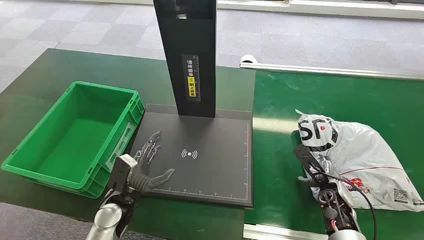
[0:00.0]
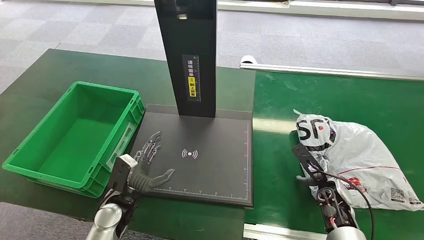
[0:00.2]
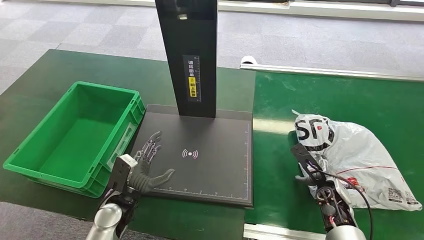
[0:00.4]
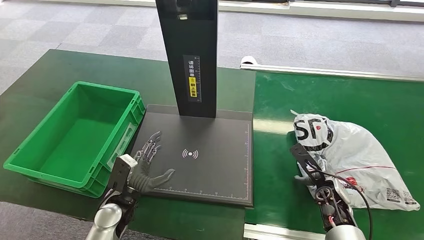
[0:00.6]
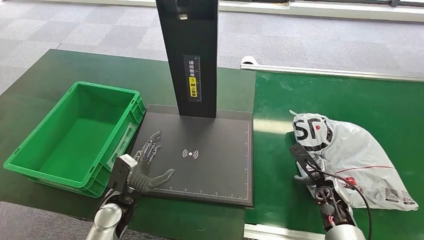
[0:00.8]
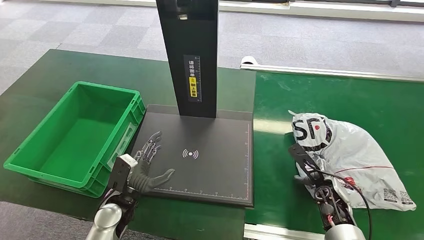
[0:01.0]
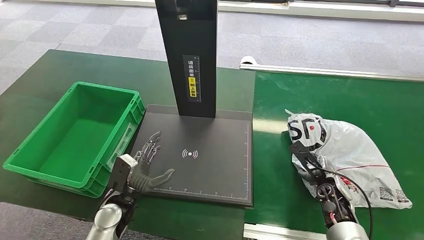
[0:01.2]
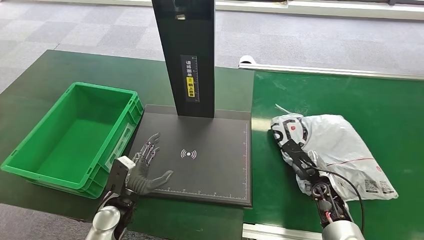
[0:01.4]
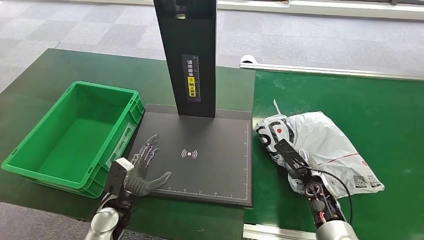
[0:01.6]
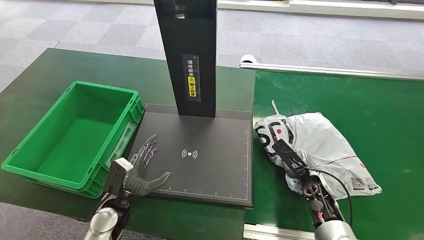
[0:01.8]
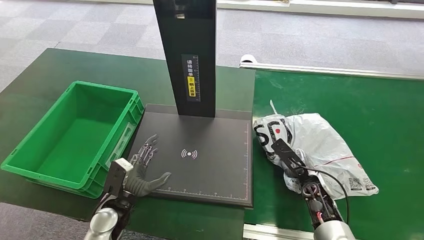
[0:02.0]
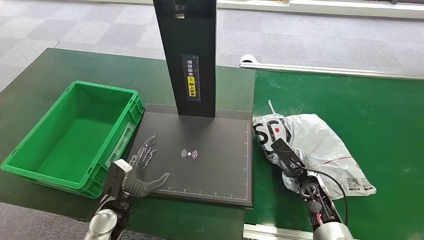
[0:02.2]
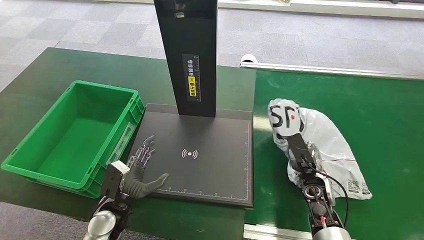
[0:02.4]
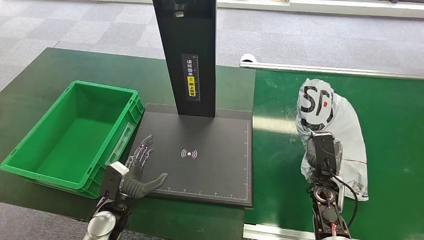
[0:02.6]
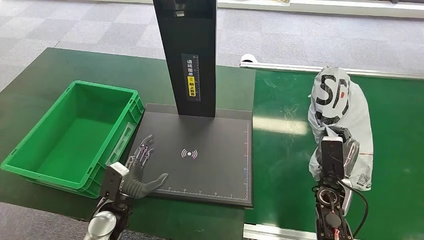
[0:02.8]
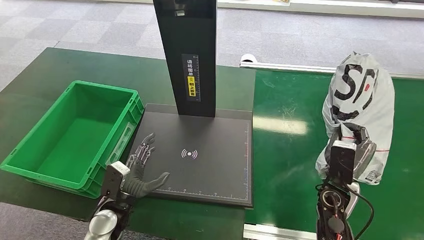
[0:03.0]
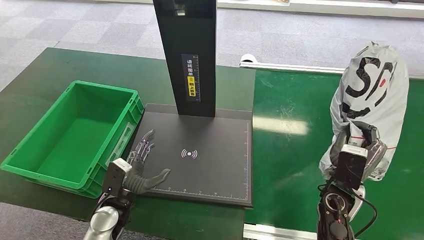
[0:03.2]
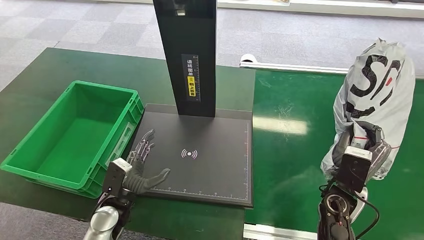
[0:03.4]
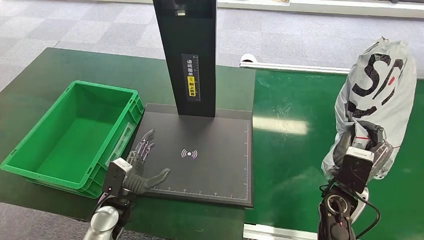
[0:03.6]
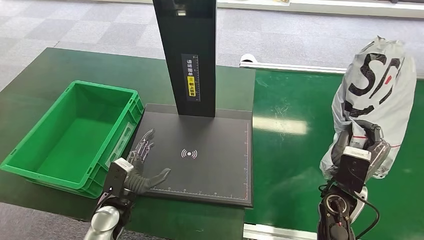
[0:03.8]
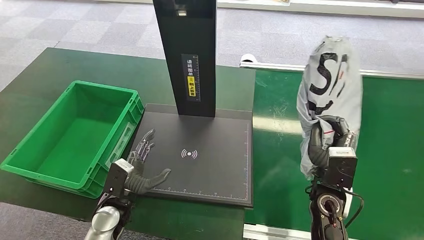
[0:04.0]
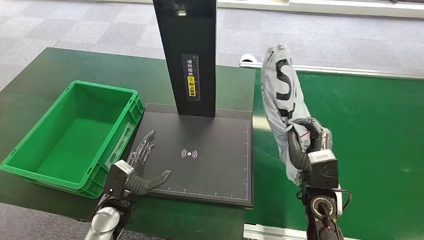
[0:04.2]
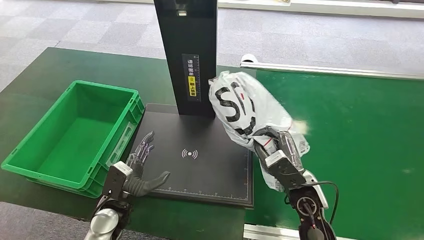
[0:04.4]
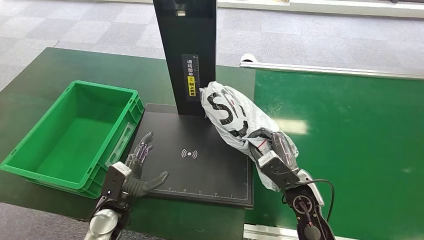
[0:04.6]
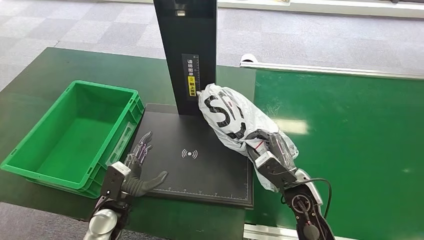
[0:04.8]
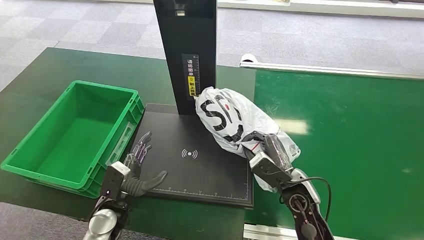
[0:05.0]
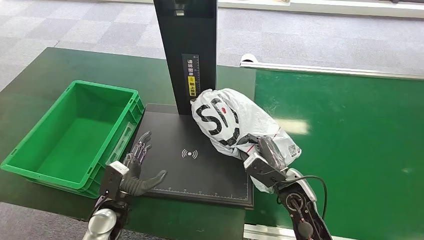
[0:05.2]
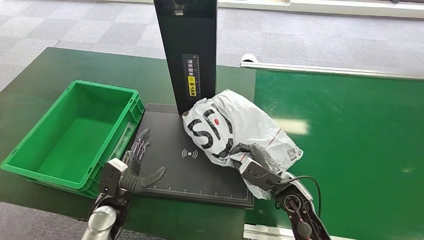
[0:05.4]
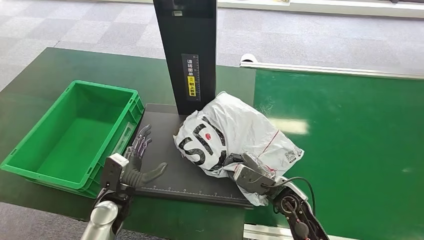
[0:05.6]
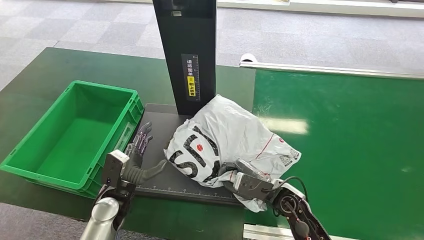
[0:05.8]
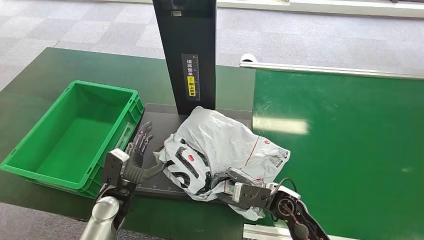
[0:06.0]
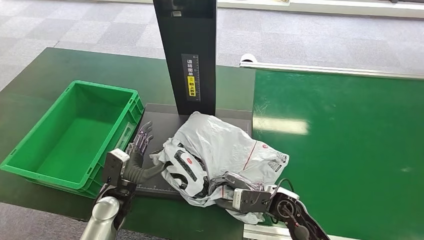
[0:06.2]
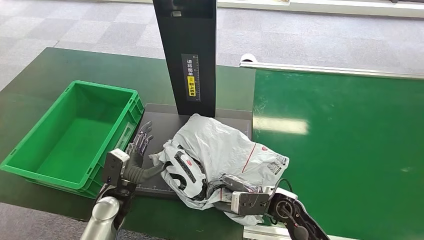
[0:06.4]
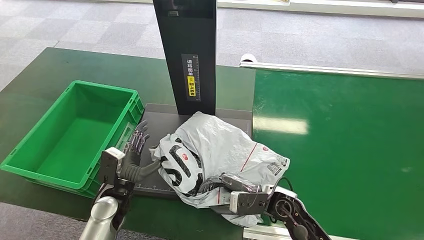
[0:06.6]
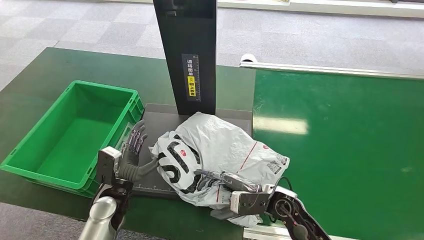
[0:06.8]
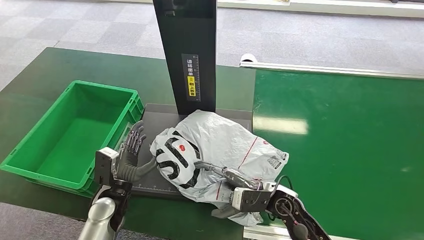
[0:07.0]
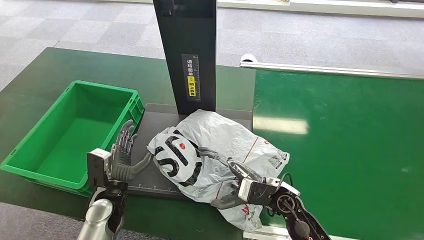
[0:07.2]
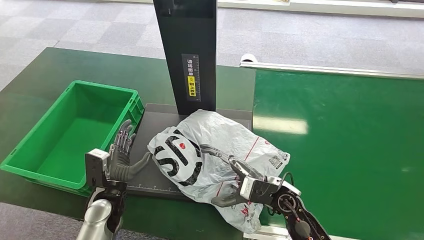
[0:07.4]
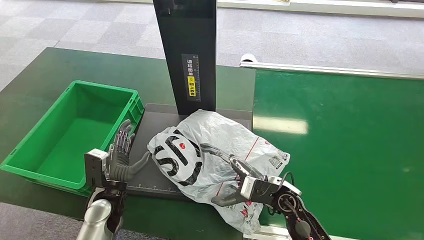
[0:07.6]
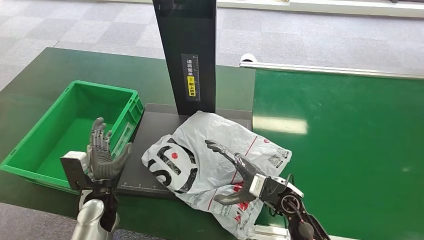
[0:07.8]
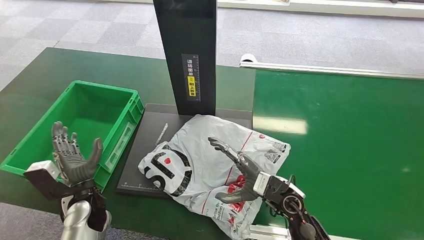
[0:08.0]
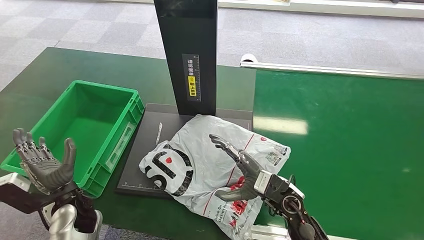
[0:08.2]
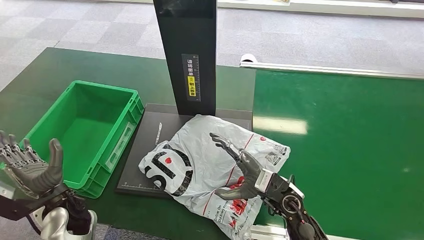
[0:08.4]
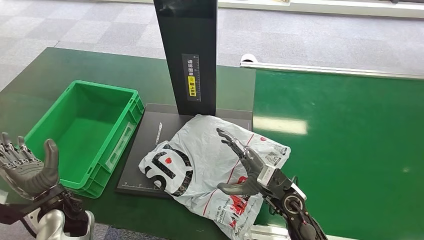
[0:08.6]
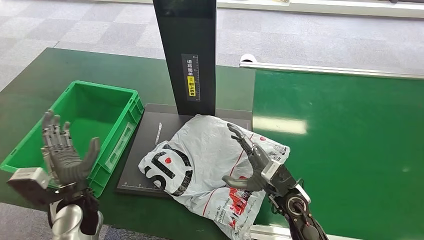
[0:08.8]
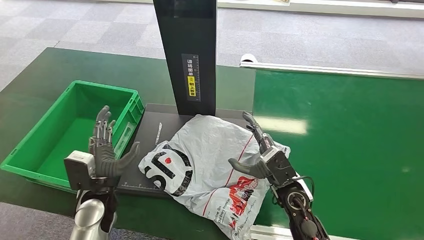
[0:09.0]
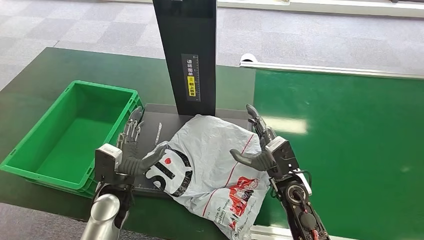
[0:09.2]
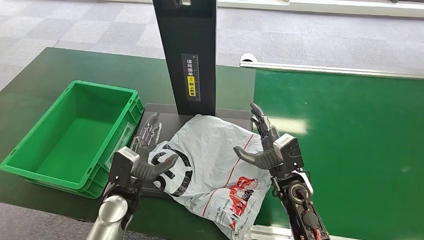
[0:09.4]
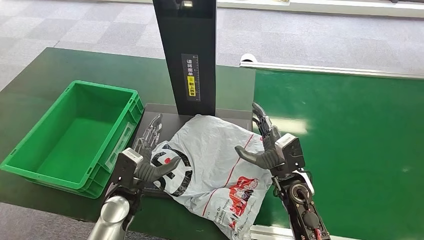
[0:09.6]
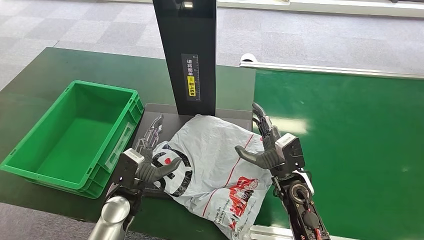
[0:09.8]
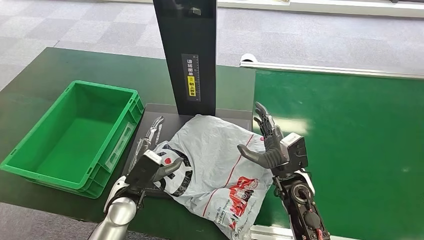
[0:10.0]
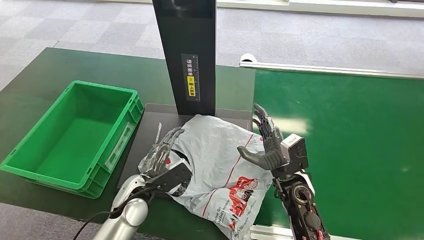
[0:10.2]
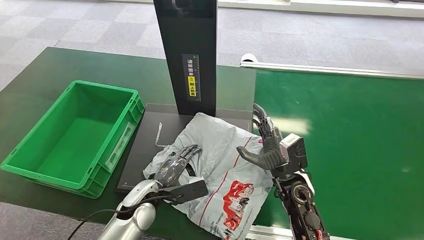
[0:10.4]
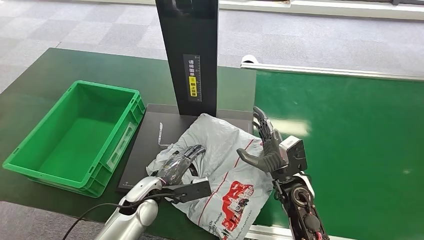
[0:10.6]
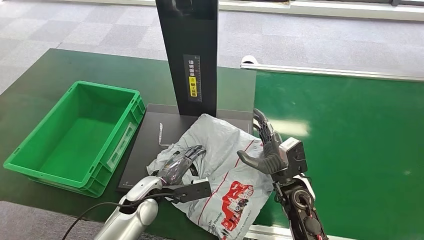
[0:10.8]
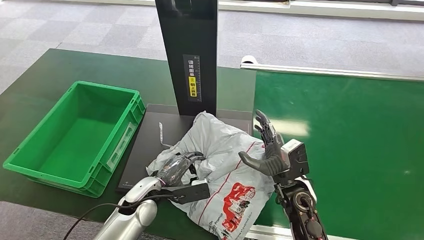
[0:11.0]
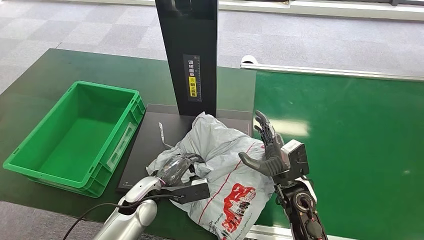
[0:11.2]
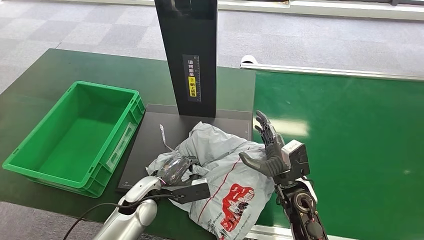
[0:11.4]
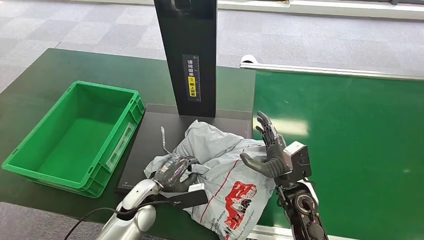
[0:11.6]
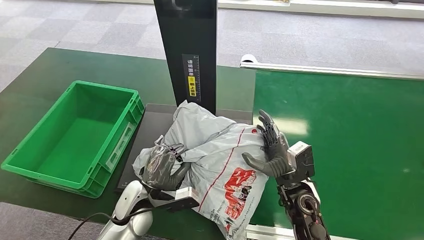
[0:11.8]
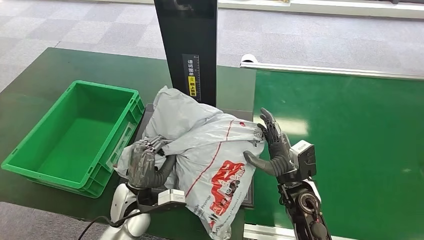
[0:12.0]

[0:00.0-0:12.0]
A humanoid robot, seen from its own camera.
Task of the whole recording: Weigh the package on the weighing device and place it in the left basket.
Step, 0:00.0 to 0:03.0: Pick up the package from the conveyor belt.
Step, 0:03.2 to 0:07.6: Place the package onto the inbound machine.
0:01.6 to 0:03.0: The right hand moves upward, roughly 5 cm.
0:04.4 to 0:06.0: The right hand shifts approximately 5 cm downward.
0:06.0 to 0:07.6: The hands stay close to where they were, moving slightly.
0:09.0 to 0:10.4: The left hand travels to the right by some 10 cm.

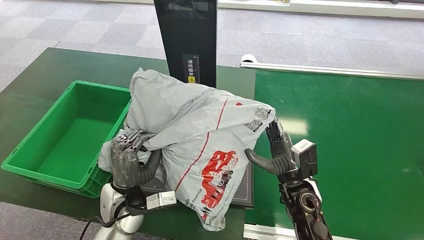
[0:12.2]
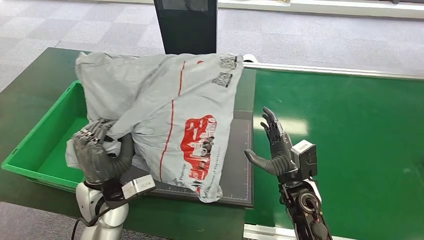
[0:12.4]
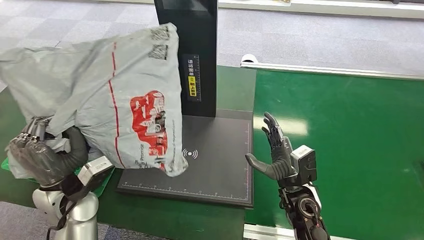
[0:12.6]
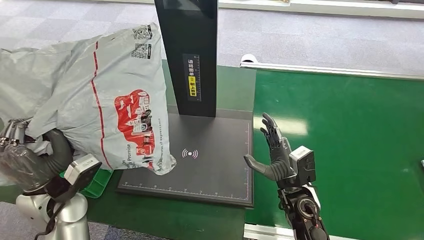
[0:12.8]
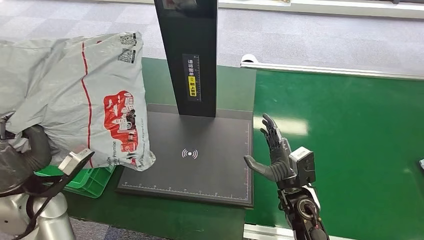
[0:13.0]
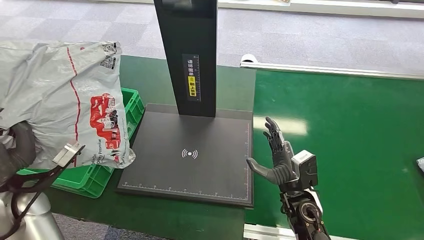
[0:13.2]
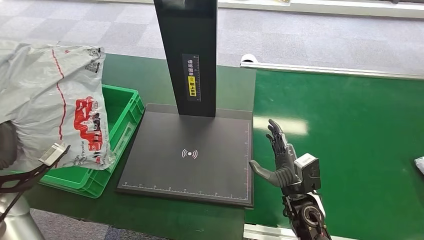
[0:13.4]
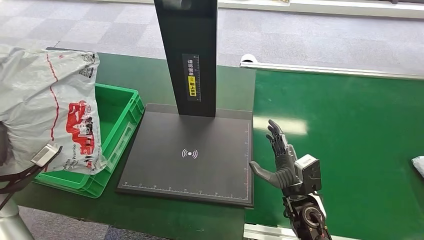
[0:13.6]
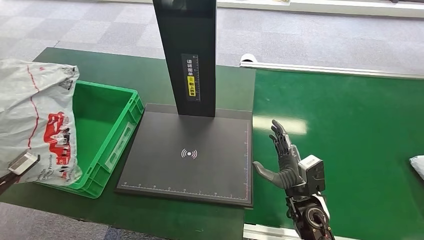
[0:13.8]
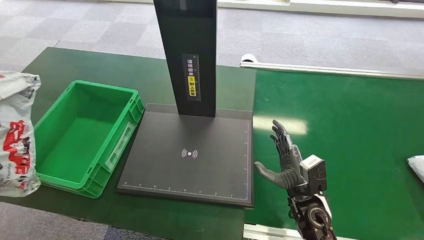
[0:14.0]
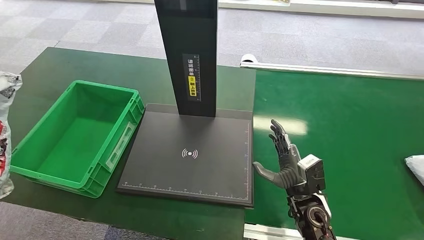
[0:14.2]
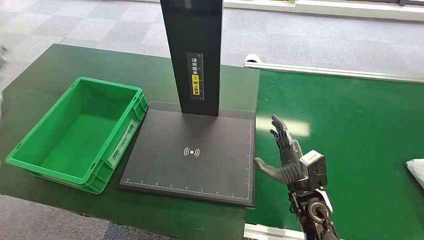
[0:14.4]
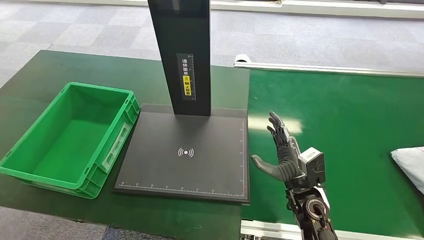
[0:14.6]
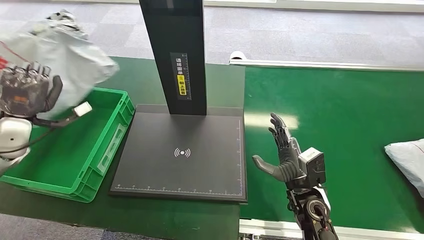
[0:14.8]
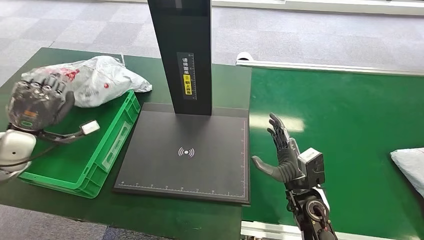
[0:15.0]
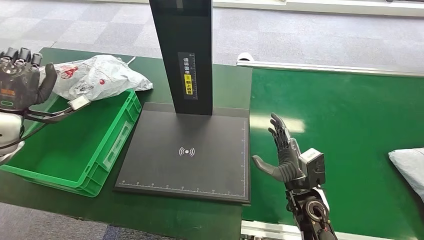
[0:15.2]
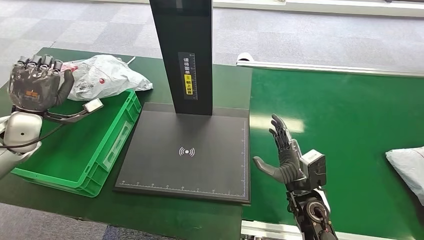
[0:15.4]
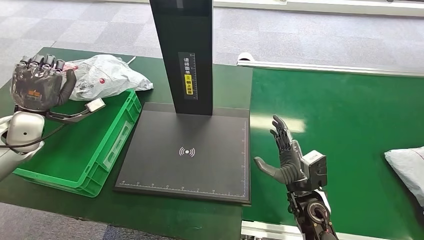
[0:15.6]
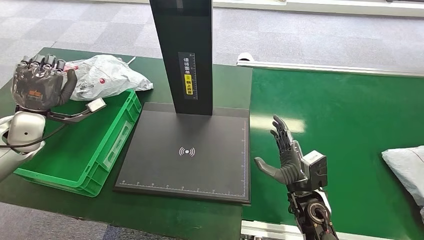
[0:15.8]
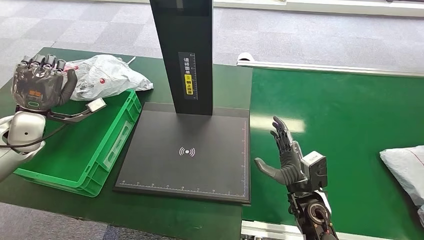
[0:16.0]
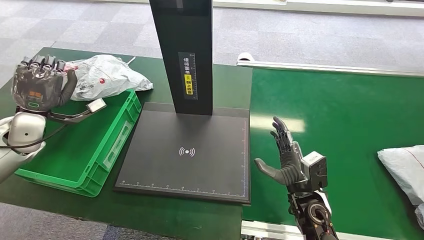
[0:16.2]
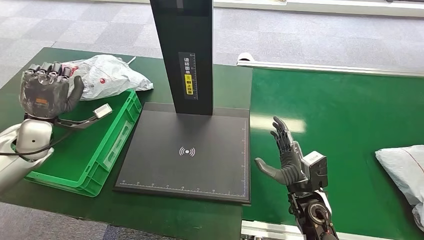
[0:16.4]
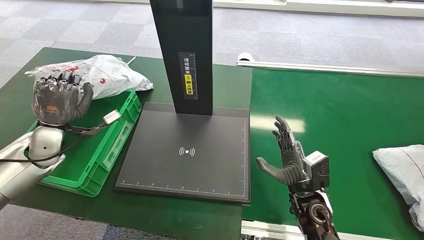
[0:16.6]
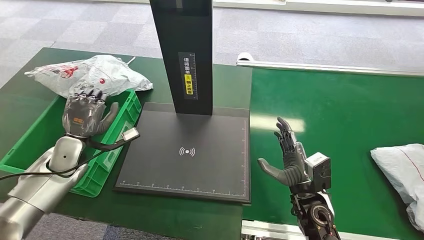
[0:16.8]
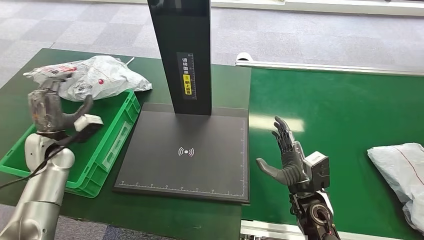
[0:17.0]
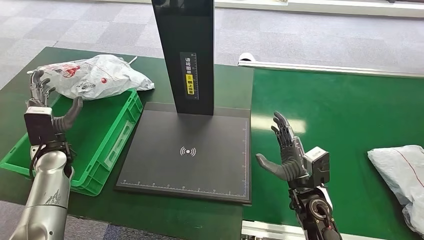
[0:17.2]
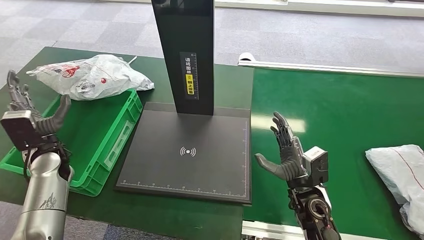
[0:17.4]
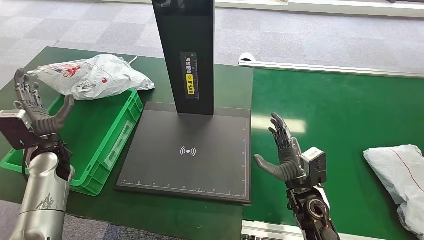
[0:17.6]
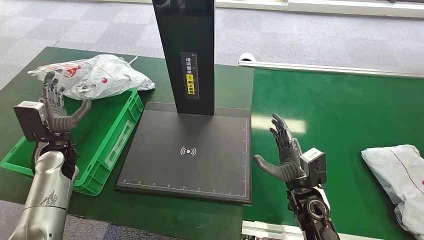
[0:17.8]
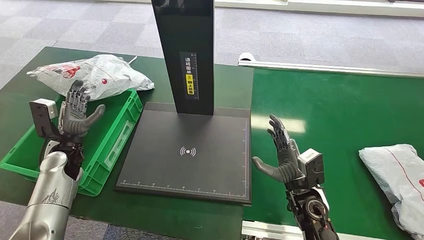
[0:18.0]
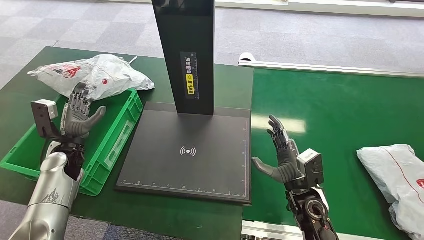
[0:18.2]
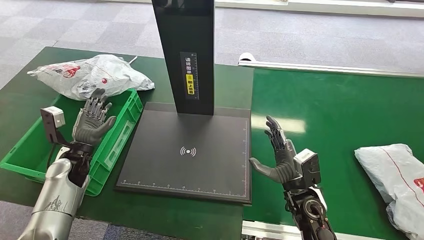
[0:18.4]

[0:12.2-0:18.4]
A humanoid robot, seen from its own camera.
Task of the whole recording: Weigh the package on the weighing device and place it in the left basket.
Step, 0:12.6 to 0:18.4: Place the package into the parcel locker.
0:15.4 to 0:16.8: The left hand travels to the right and downward by about 15 cm.
